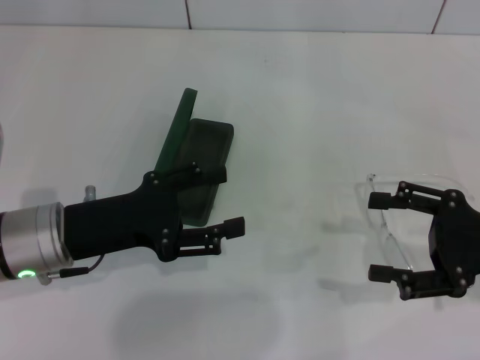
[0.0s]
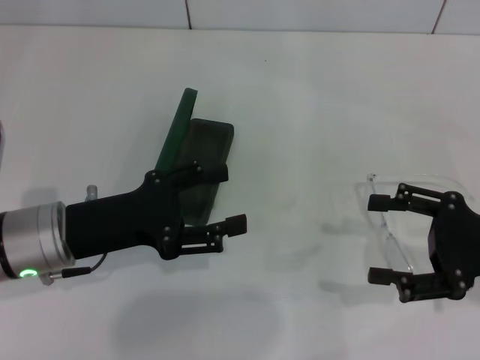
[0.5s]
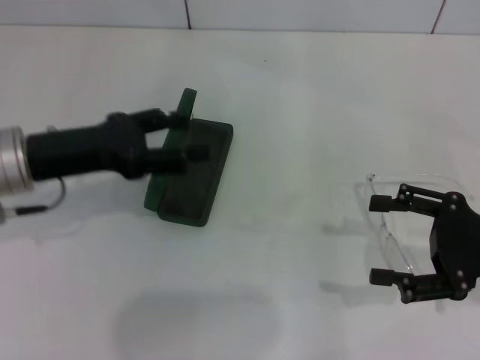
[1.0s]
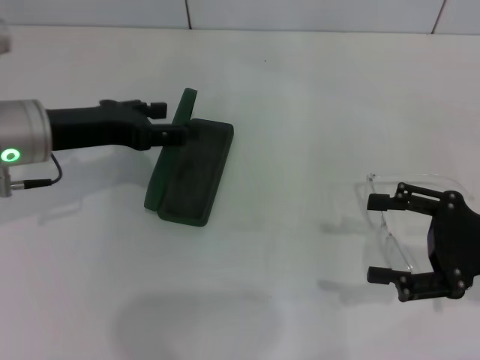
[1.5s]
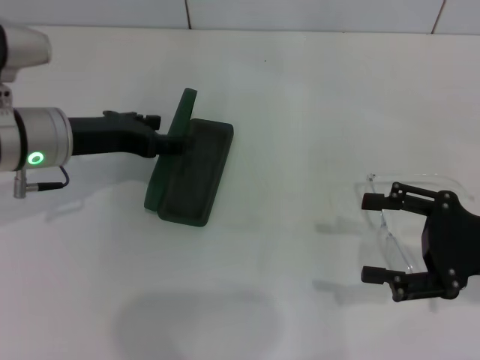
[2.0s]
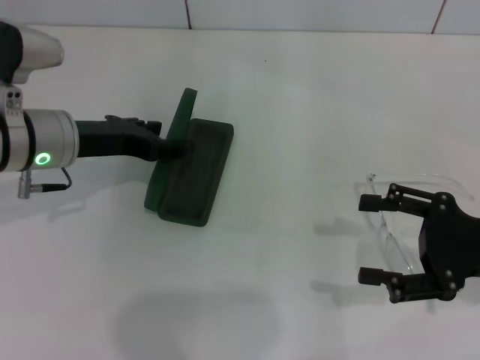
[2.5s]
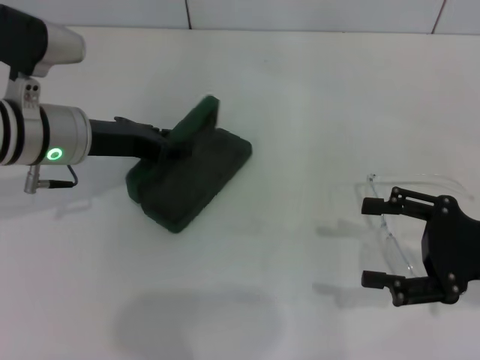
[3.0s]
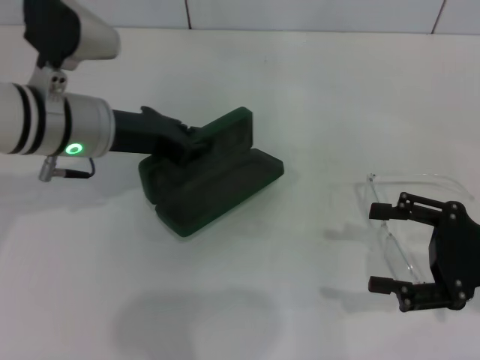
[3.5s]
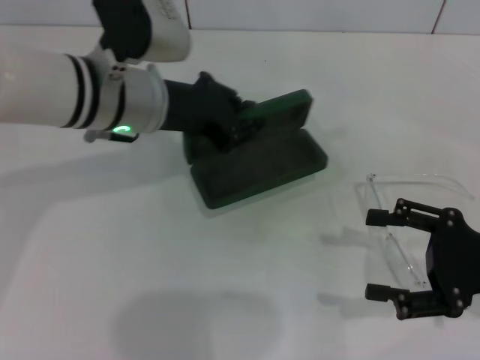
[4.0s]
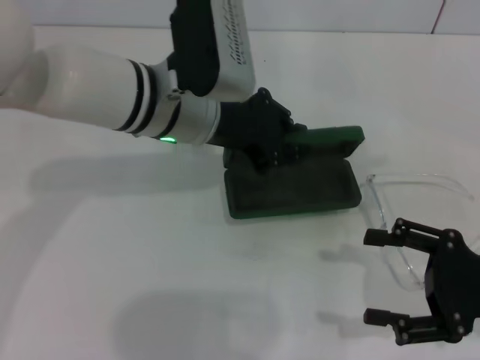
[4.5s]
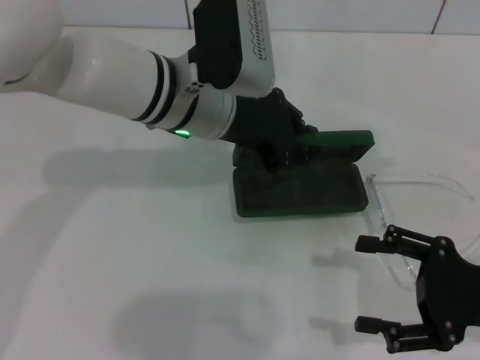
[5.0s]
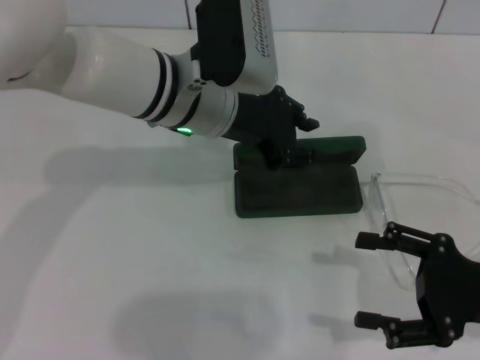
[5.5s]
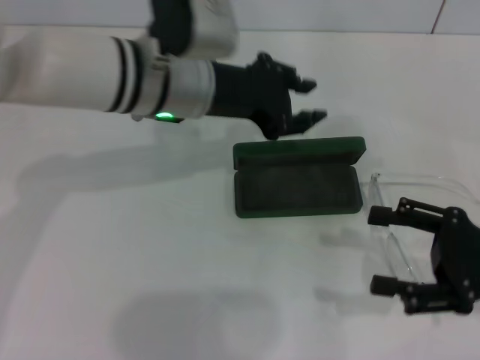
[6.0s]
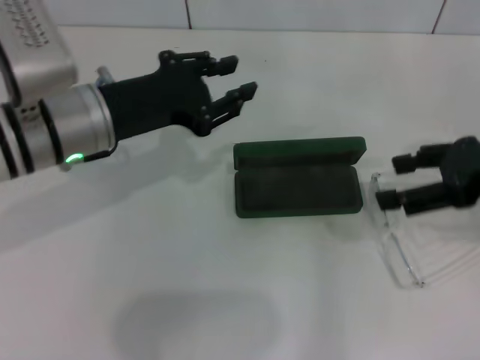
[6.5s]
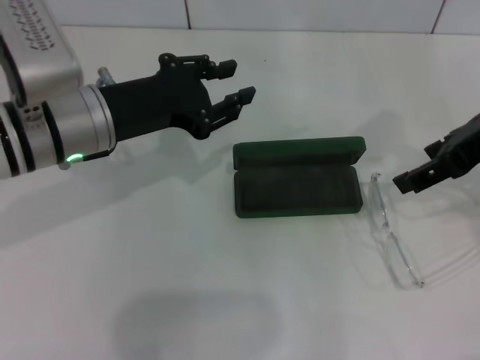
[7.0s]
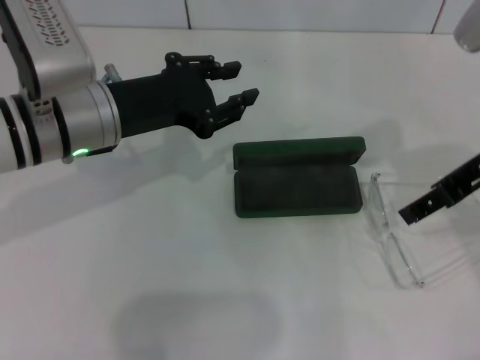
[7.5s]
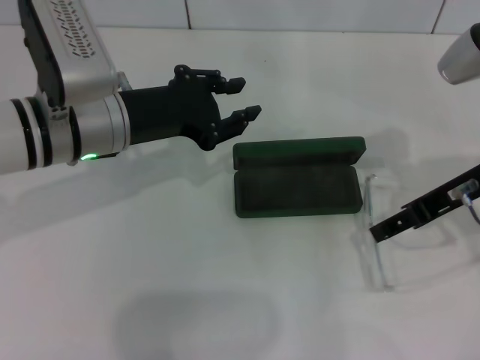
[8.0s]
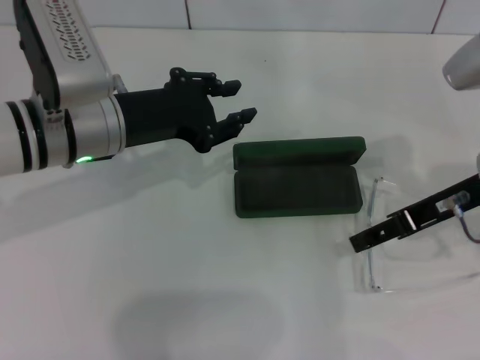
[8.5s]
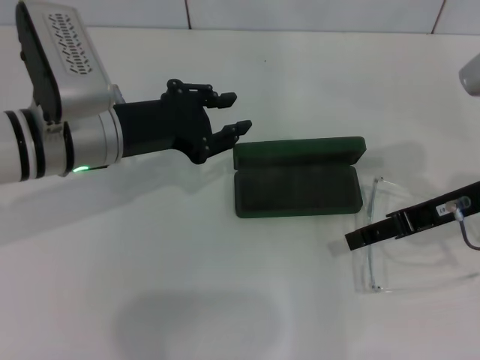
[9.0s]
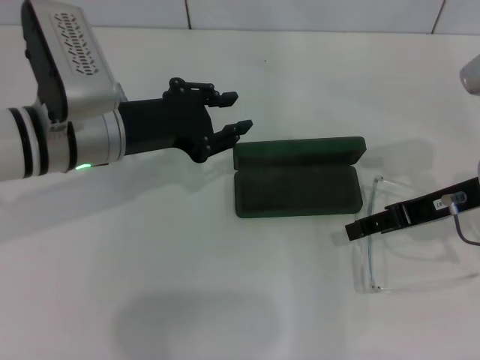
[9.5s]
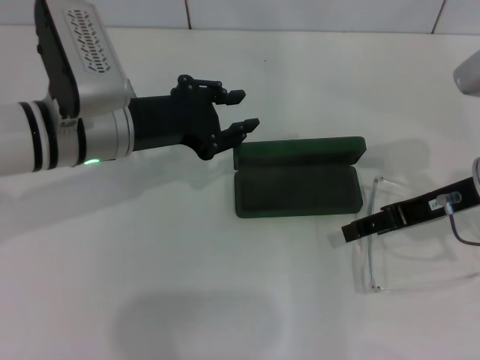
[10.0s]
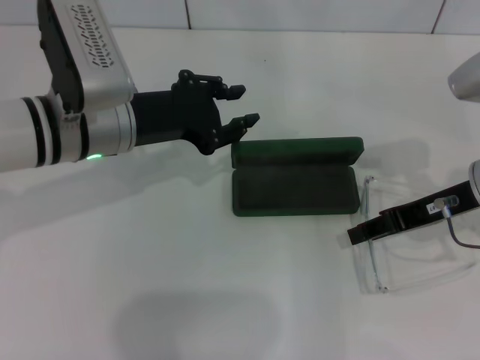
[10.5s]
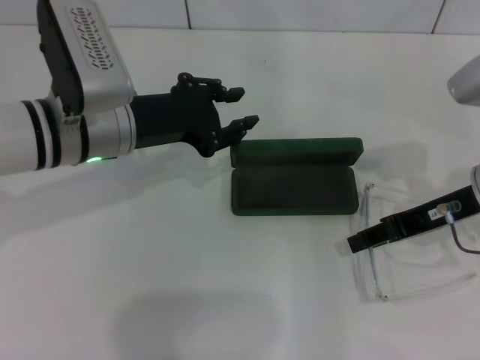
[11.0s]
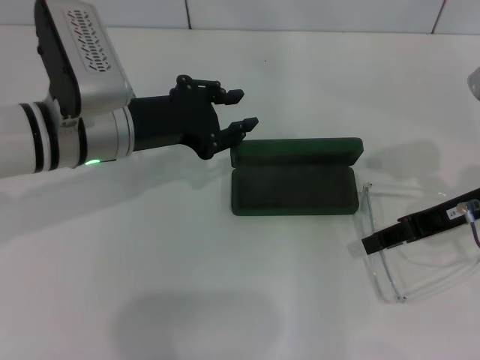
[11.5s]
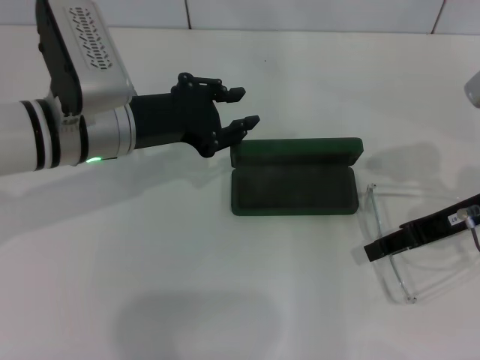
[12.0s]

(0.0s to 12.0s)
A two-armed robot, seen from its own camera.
Step, 0.0s - 3.0s: Grab the glasses case with your left hand.
Step, 3.5s - 5.5s: Place the glasses case in the center of the table with your left hand.
0.0s - 2.0s: The left gripper is displaced forward by about 10 cm.
2.0s - 4.0s: The left gripper travels to the right by approximately 10 cm, and closes.
6.0s - 8.0s: The right gripper travels forward, upward and to the left by about 15 cm; the left gripper heads to the left, covering roughly 5 cm.
8.0s - 12.0s: There are only small adjustments of the grippers.

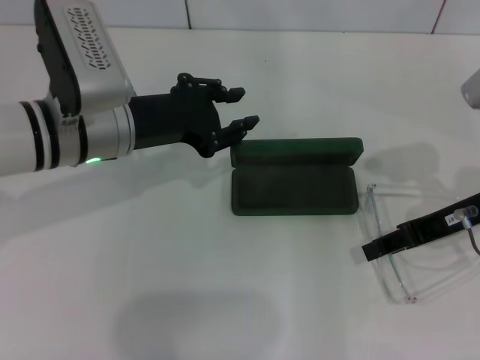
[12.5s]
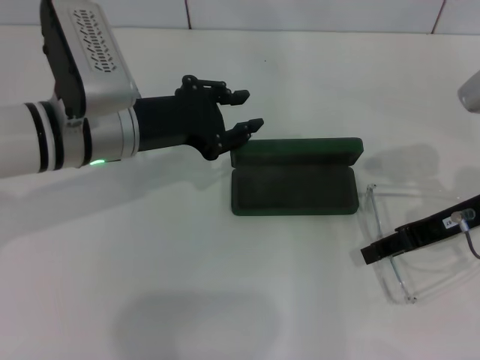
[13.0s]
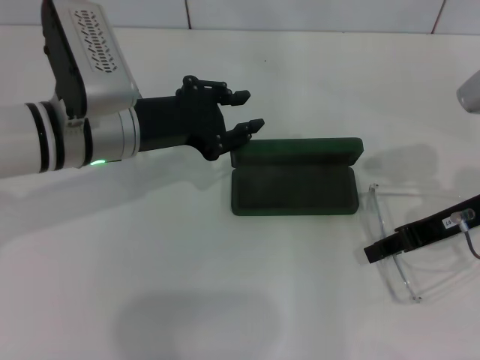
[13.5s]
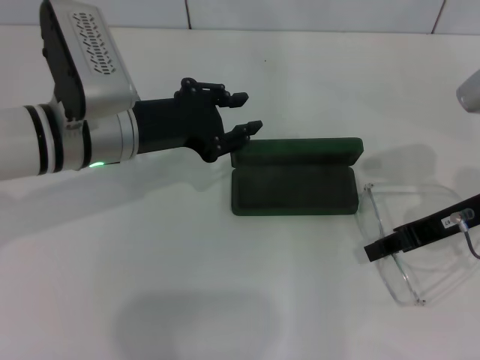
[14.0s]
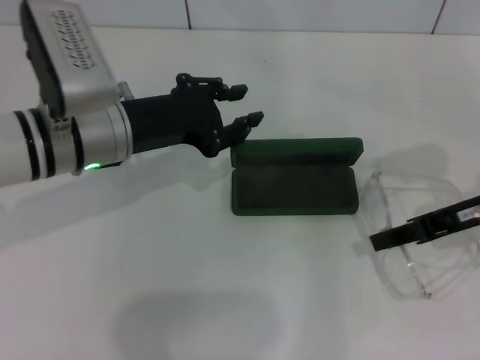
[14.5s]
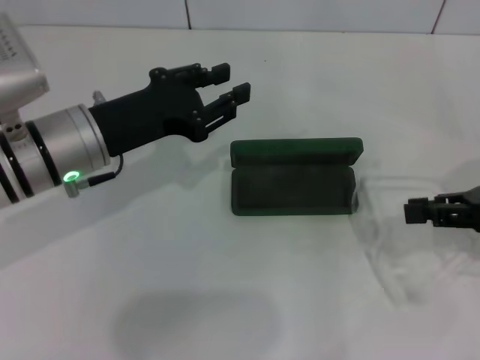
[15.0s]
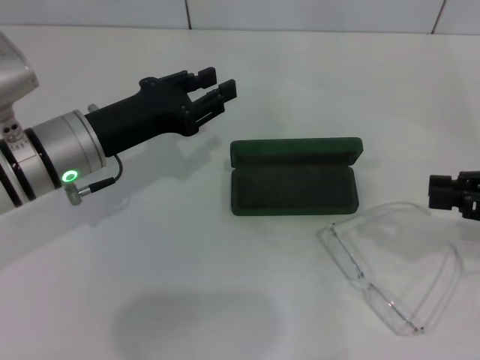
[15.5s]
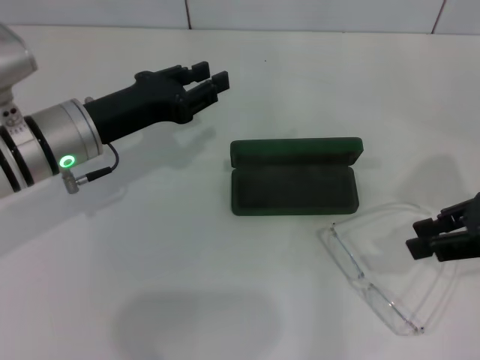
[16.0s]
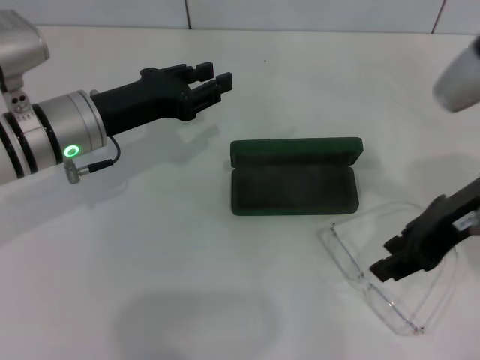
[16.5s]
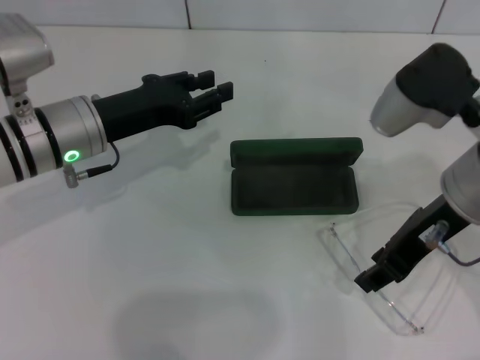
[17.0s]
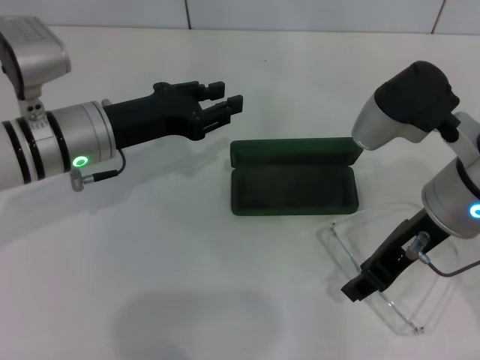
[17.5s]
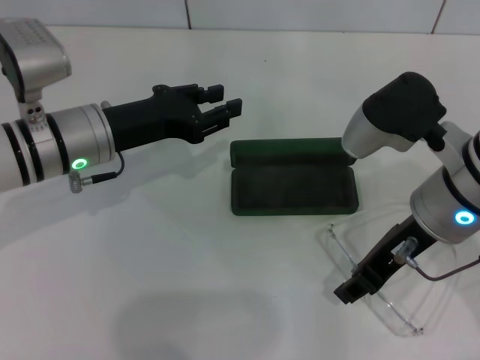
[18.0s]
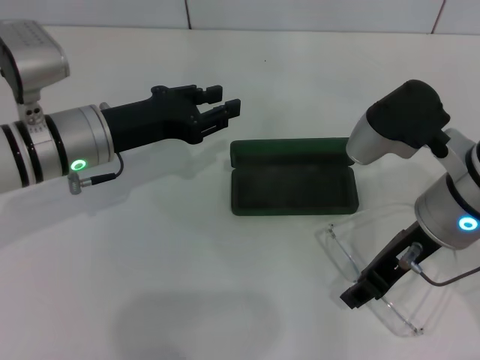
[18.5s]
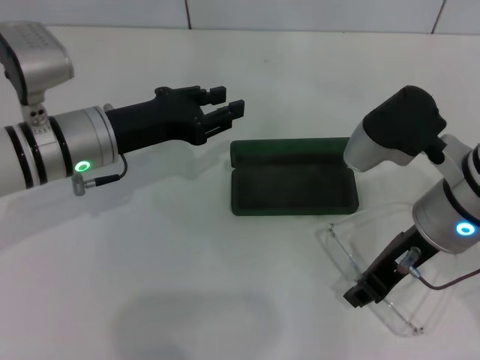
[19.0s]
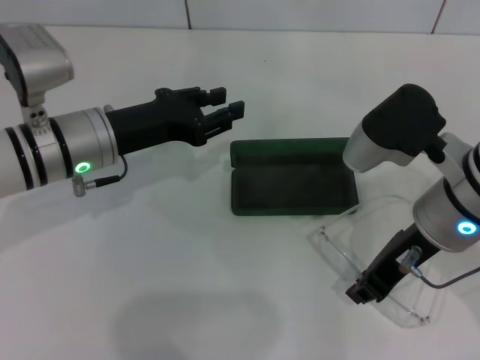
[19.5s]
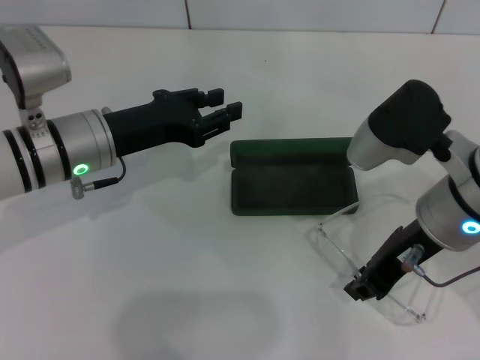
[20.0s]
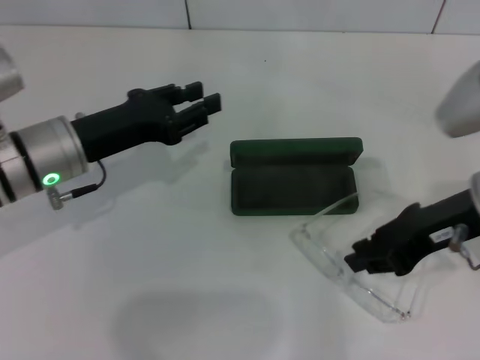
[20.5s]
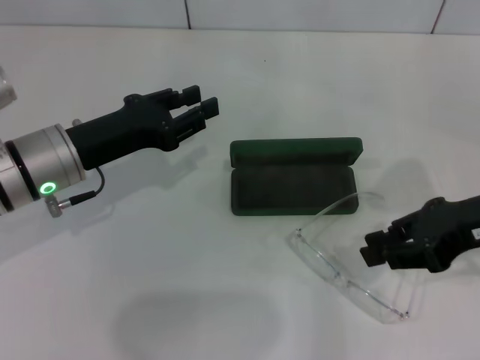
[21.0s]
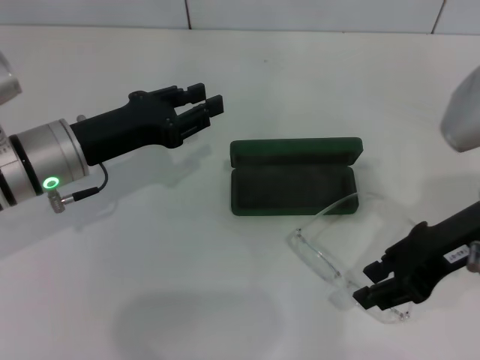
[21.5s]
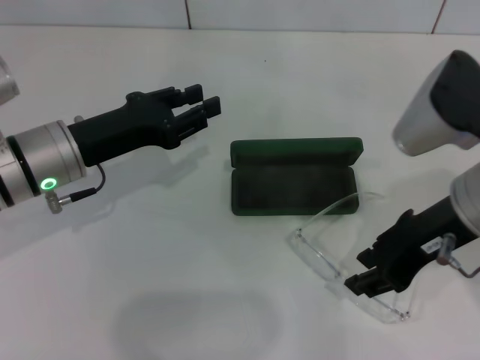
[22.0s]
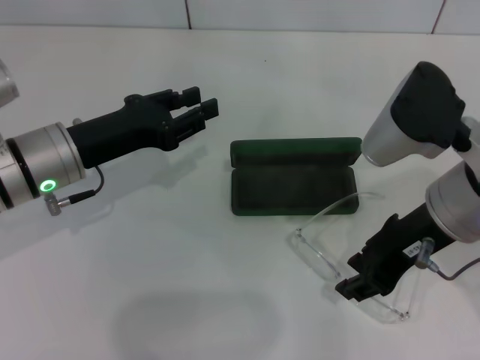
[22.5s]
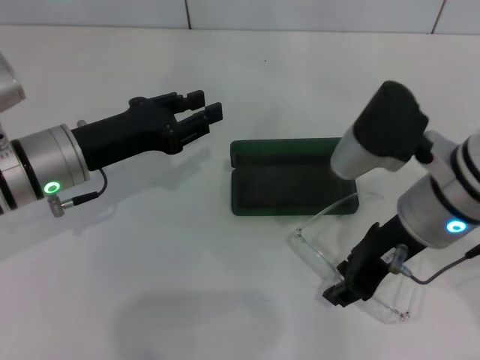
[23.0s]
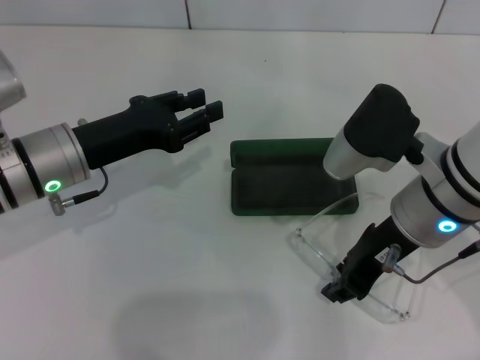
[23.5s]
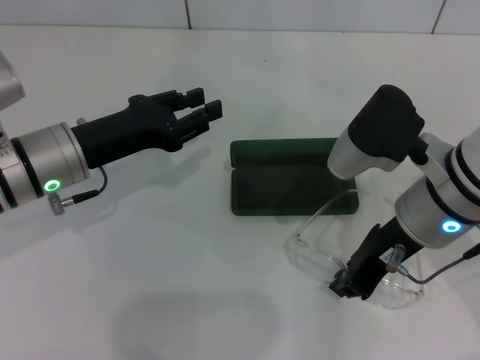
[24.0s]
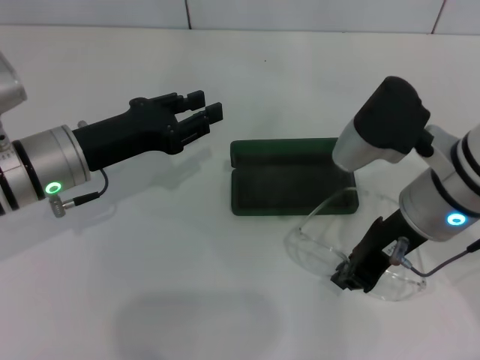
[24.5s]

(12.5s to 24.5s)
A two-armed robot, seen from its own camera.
Step, 12.5s - 24.0s: Grab the eyeglass frame with your right hand.
12.5s - 14.5s: The grippers move only a little.
14.5s - 16.5s: The right gripper moves upward and to the left, about 10 cm.
16.5s - 18.5s: The right gripper shifts by roughly 5 cm.
18.5s - 20.5s: The right gripper shifts roughly 5 cm to the right.
20.5s - 22.5s: The grippers stay close to where they were, moving slightly.
22.5s - 24.5s: The right gripper closes up.

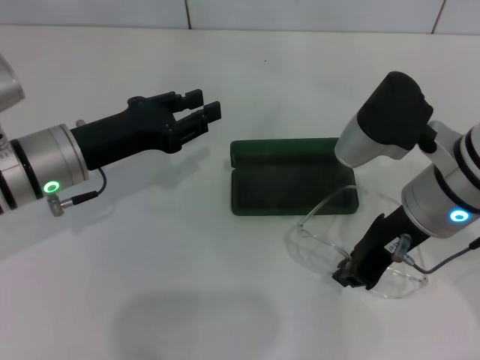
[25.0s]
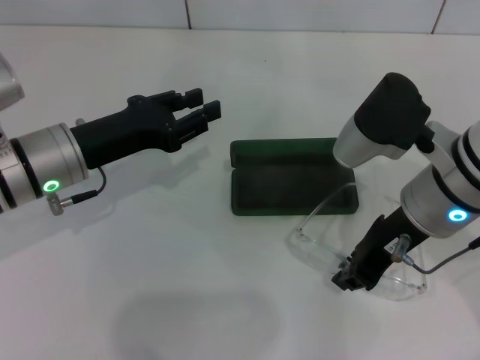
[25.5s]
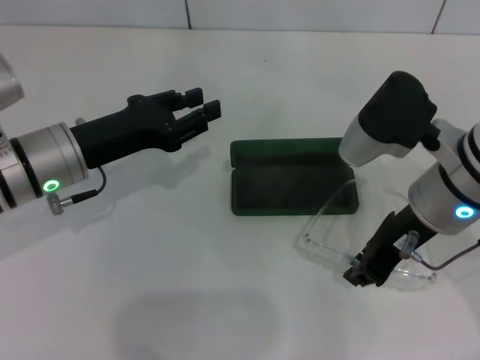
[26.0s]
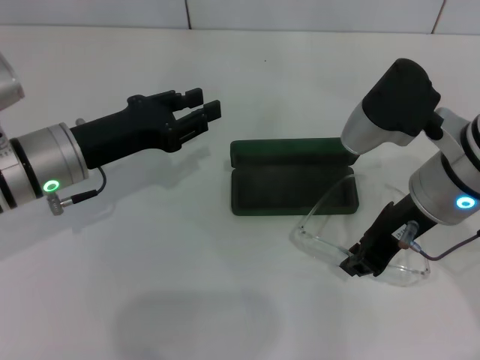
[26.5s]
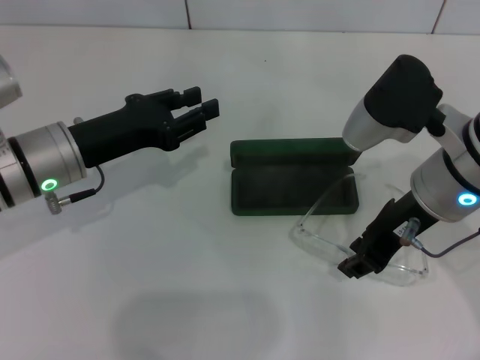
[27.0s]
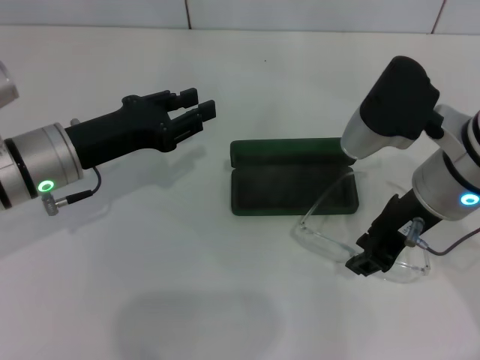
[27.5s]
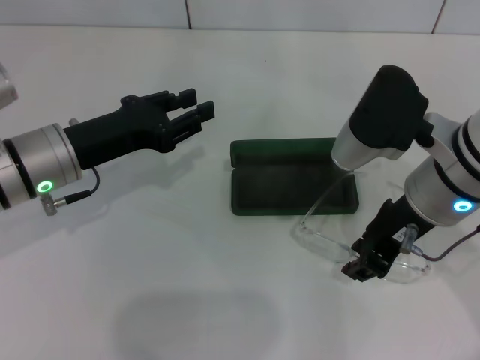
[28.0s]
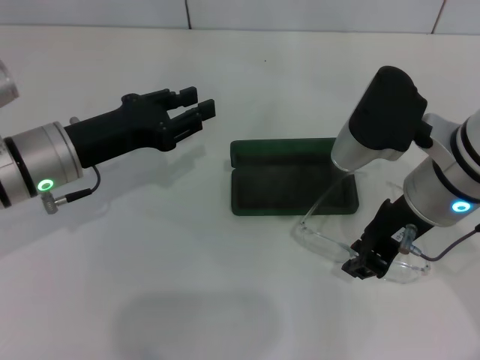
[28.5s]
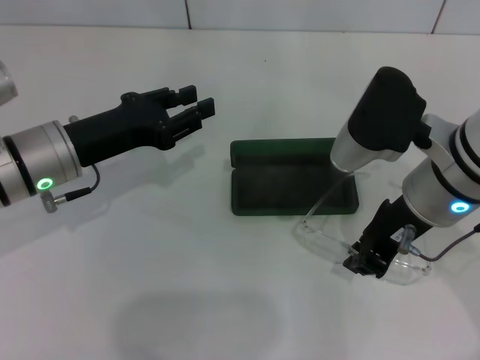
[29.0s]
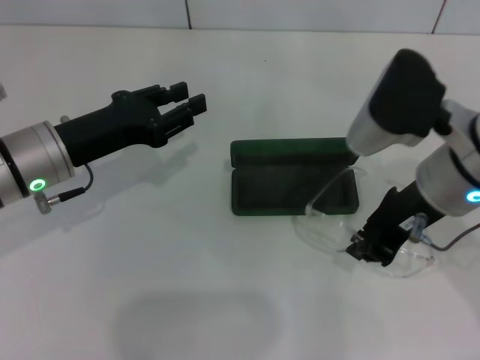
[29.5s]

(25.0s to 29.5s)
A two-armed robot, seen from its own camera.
25.0s - 27.0s: Both grippers stay about where they are.
27.0s - 29.5s: The grippers move only a little.
